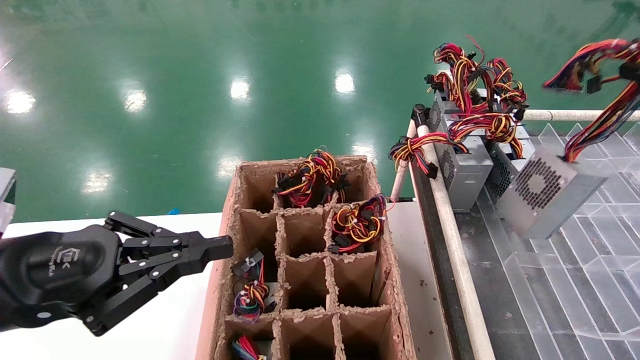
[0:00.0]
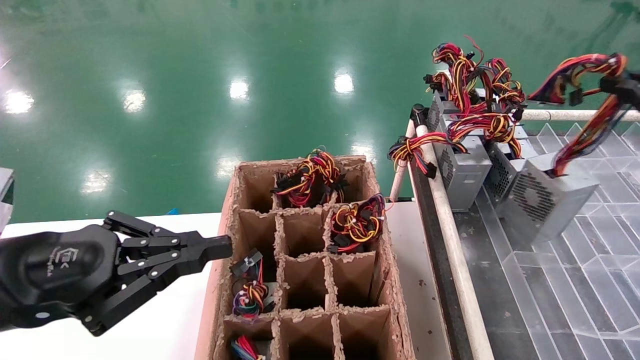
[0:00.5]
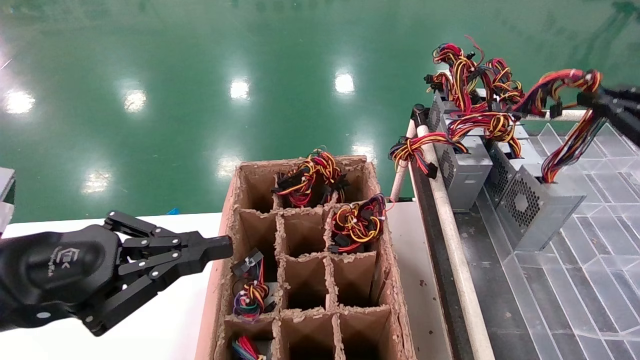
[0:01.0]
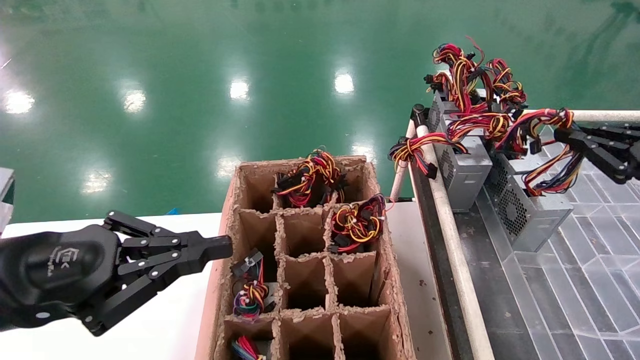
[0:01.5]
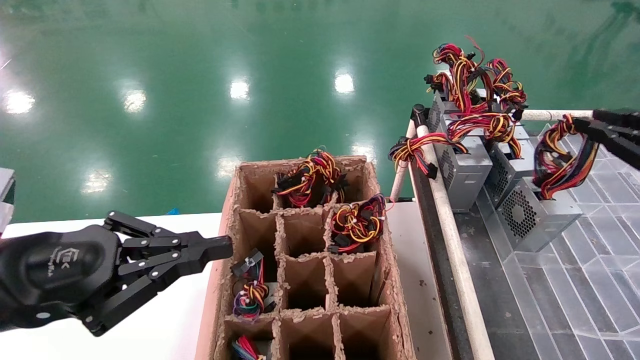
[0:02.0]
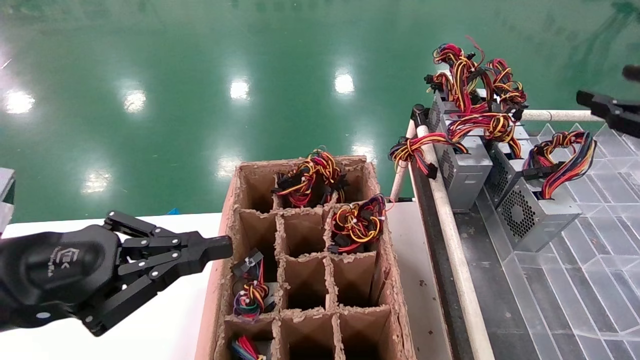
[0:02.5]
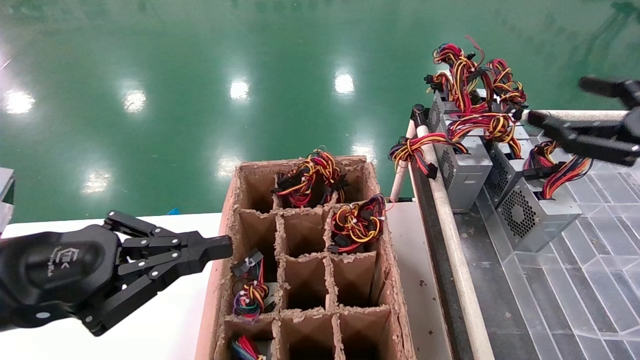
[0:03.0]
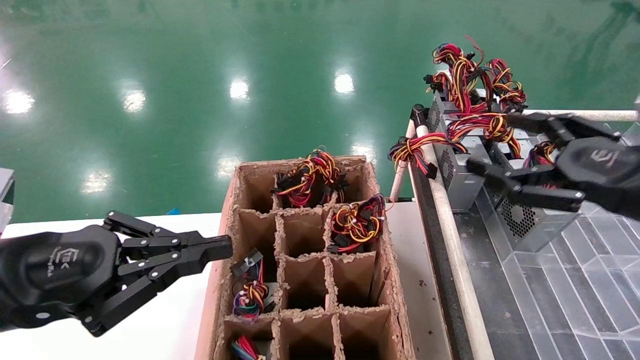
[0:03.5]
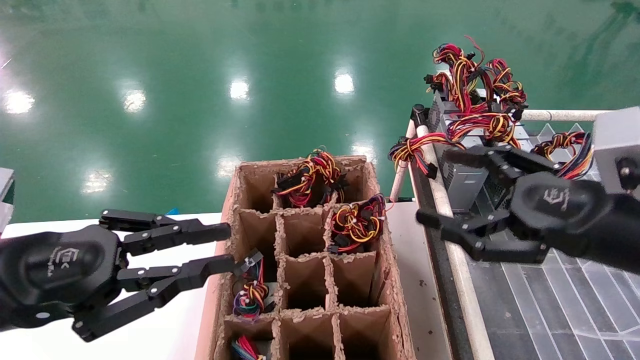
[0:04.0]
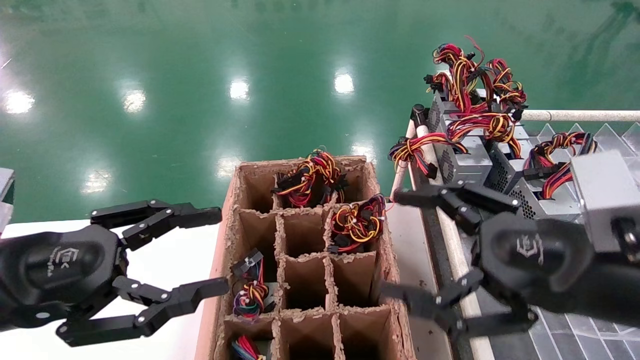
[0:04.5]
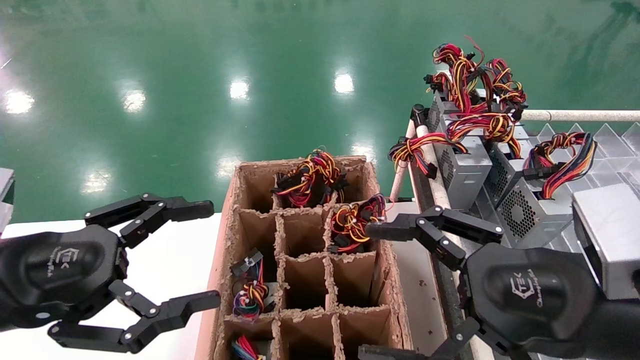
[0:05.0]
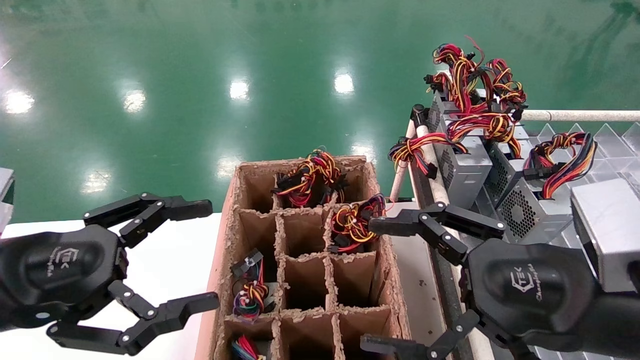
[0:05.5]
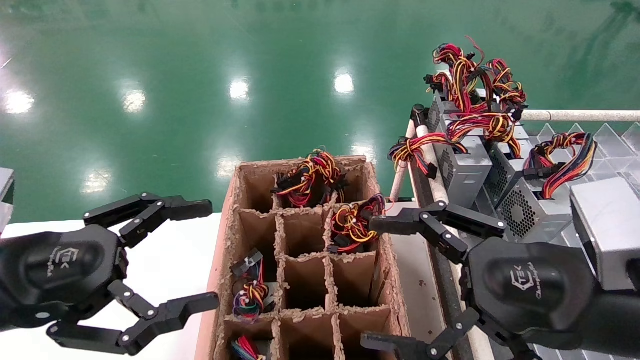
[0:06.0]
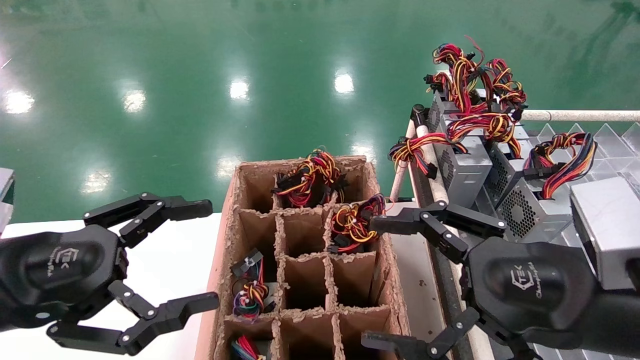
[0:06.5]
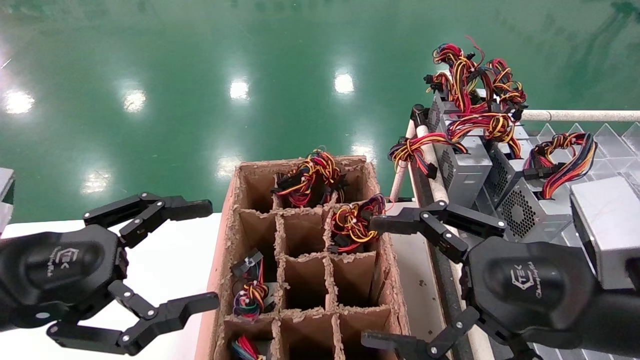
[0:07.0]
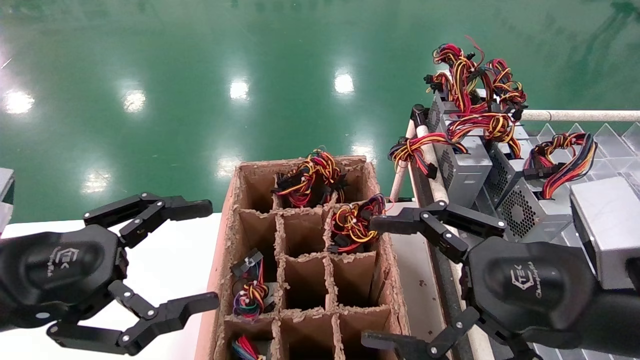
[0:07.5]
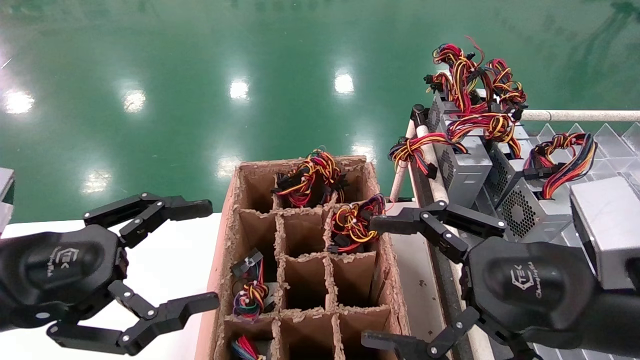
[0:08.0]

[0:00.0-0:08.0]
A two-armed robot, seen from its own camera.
Step, 0:00.0 to 0:02.5: Place the main unit power supply in the designated area.
0:00.0 to 0:02.0: The right gripper is displaced downward by some 5 cm.
0:02.0 to 0:04.0: The right gripper travels to the left by about 15 cm, and opens up.
0:04.0 to 0:06.0: The left gripper opens its fingers, while the right gripper is displaced to the left by about 5 cm.
0:06.0 to 0:08.0: Neither gripper changes place.

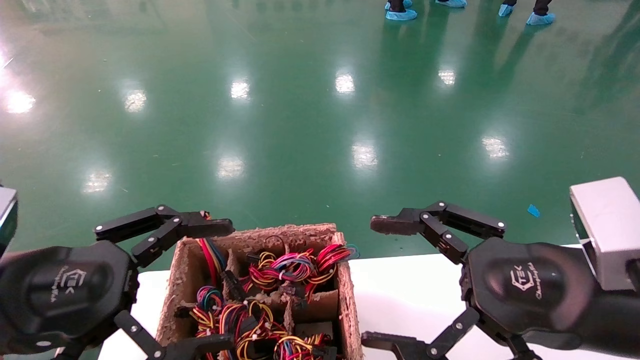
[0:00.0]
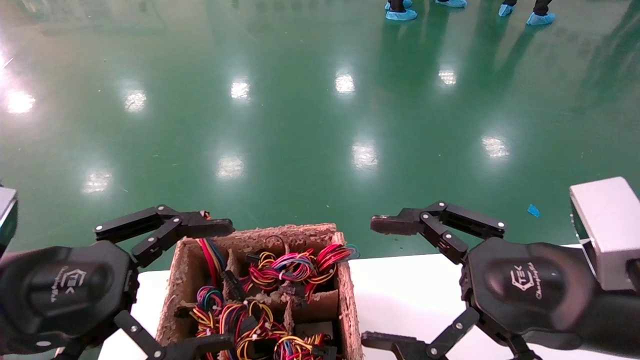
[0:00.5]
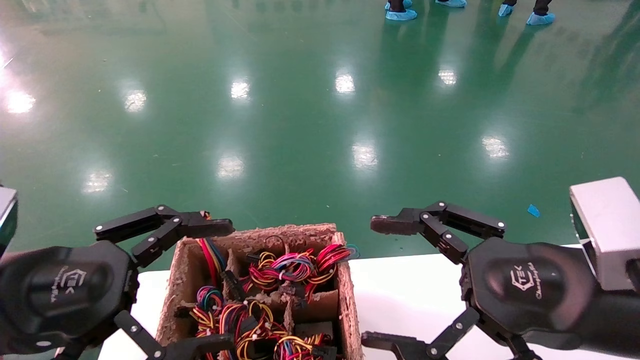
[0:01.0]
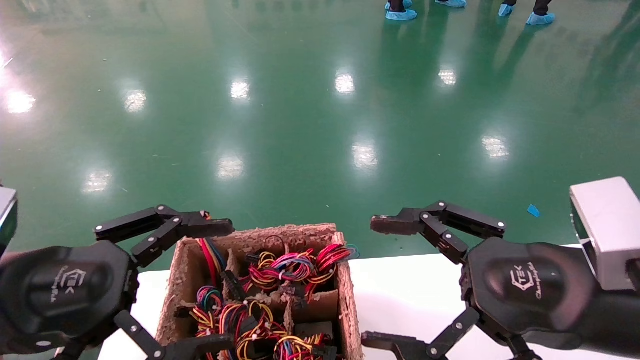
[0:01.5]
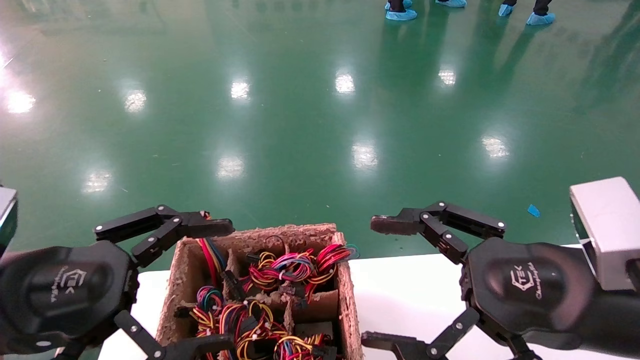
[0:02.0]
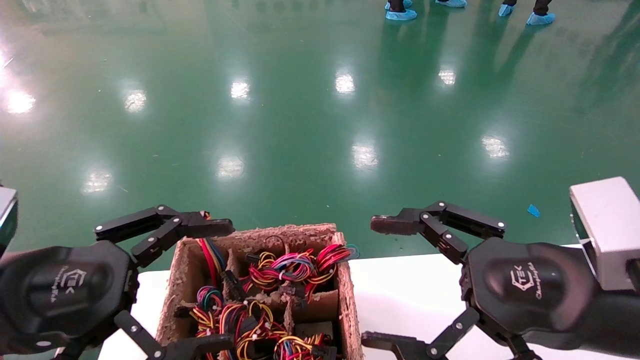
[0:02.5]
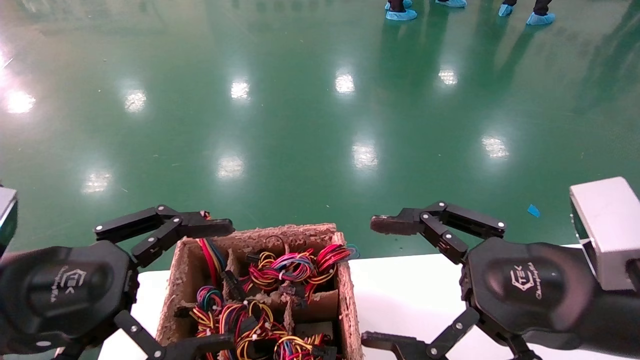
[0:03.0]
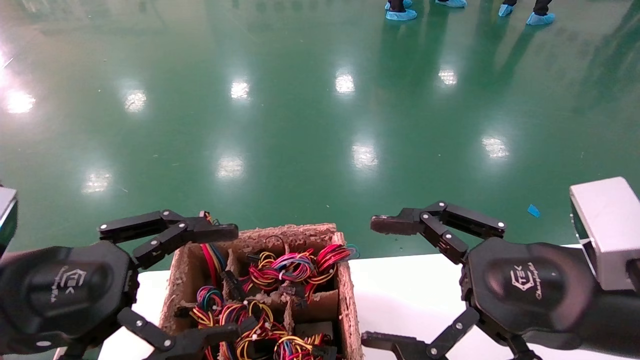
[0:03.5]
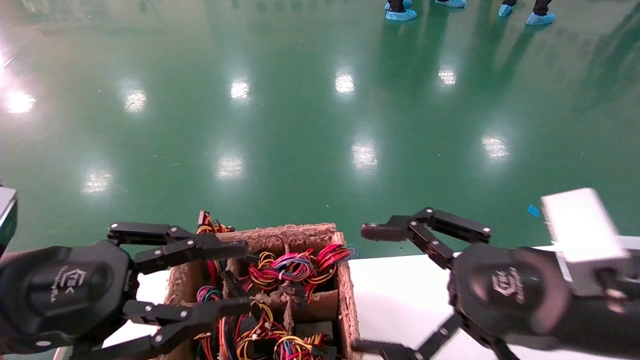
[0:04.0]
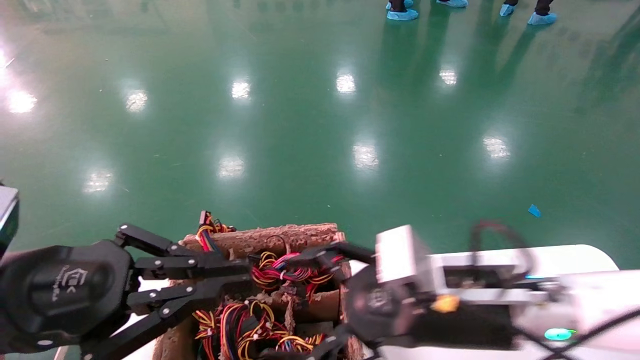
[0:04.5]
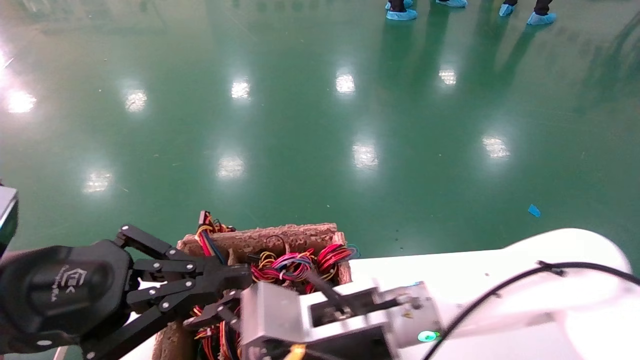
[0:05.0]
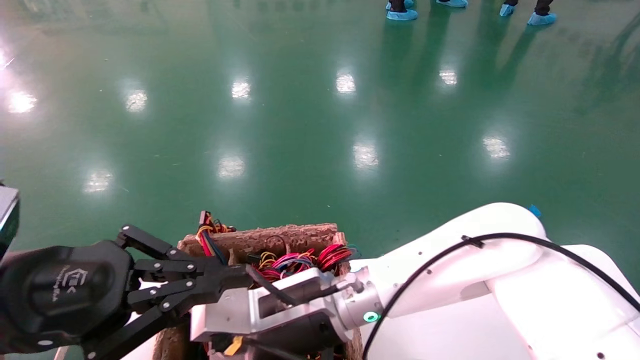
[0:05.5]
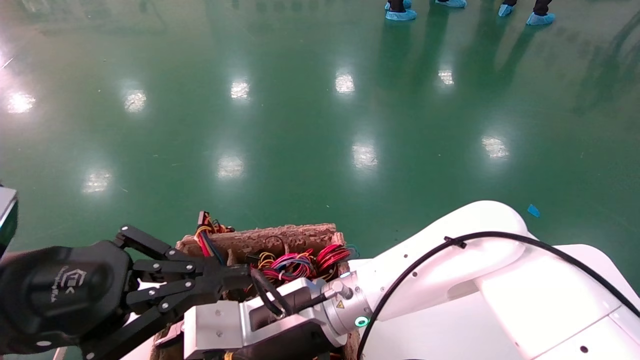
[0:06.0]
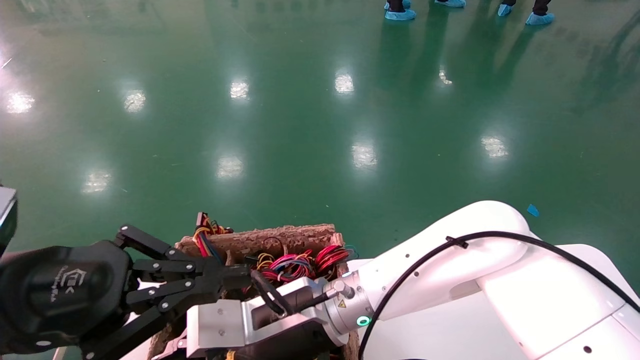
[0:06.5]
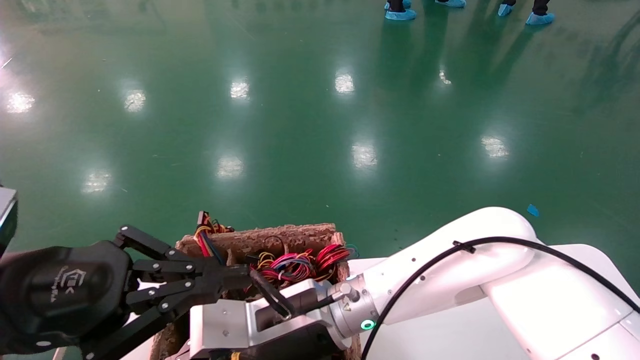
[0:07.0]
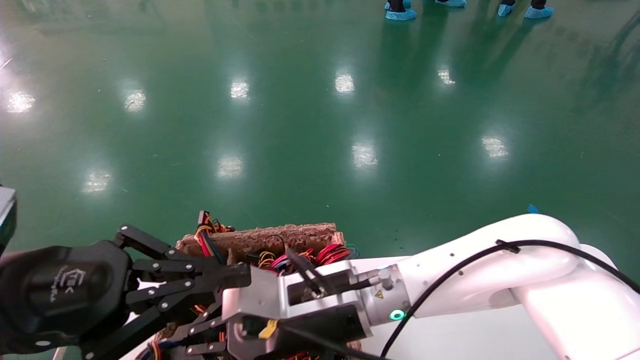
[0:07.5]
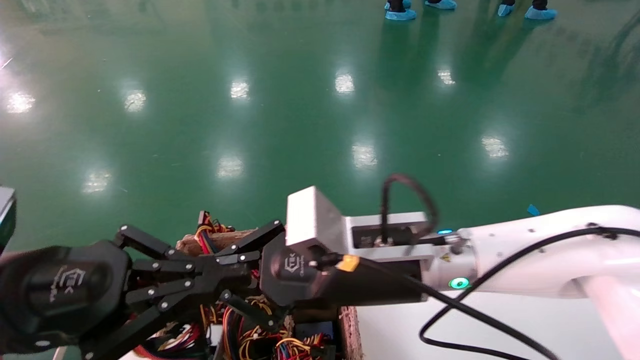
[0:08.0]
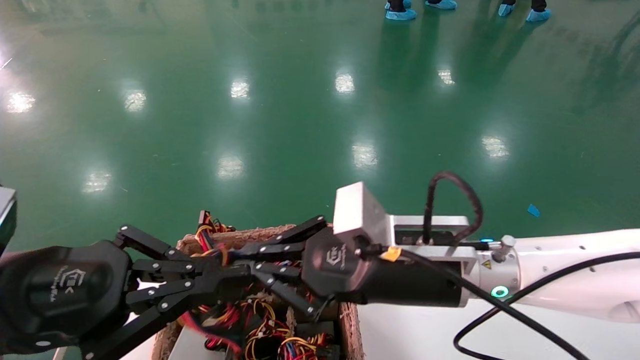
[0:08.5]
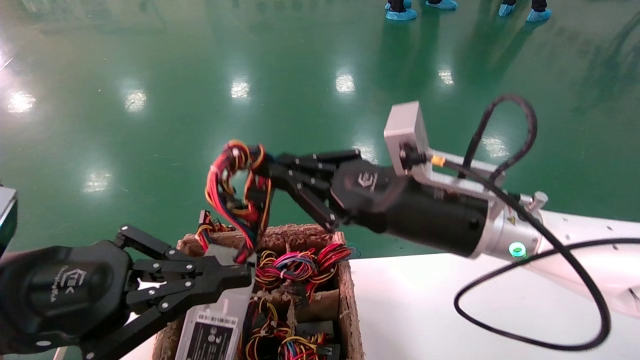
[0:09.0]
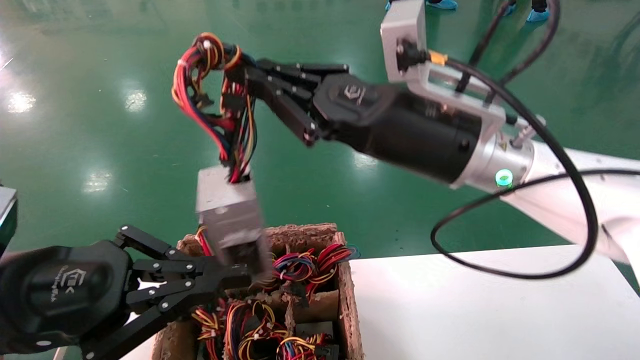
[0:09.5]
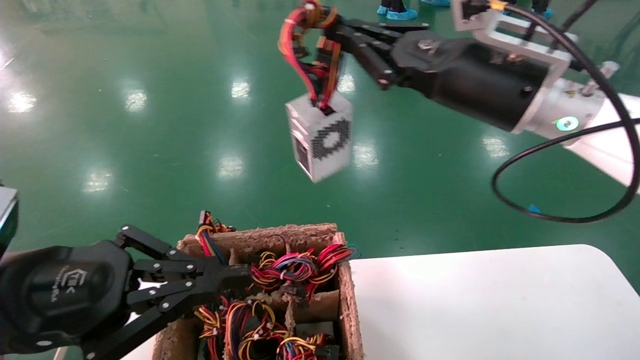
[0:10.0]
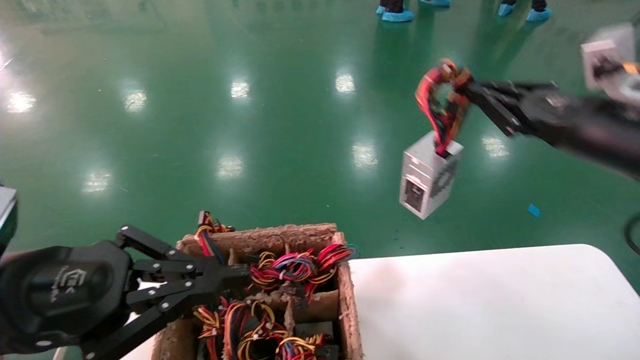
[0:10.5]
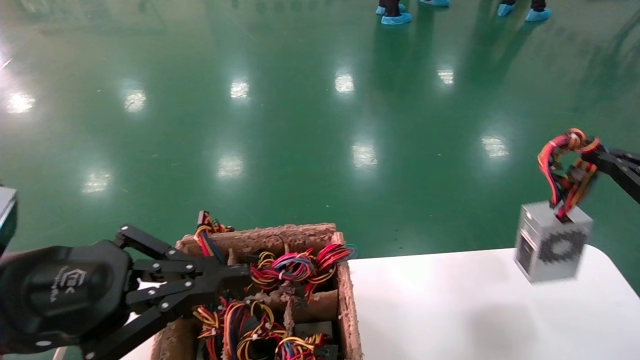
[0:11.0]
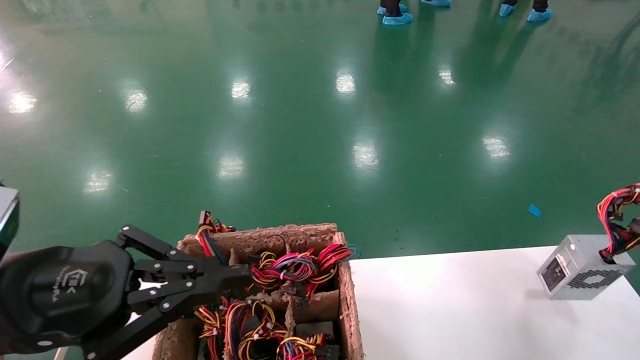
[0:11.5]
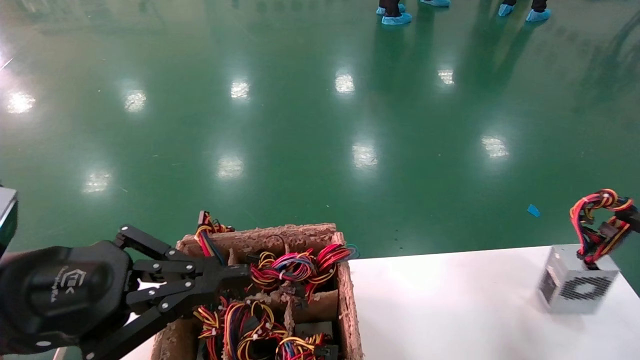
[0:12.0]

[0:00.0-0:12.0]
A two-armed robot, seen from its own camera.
Step, 0:04.5 to 0:07.0: Grab the main unit power supply from the containment box.
0:00.0 to 0:02.0: Both grippers stay about where they are.
0:02.0 to 0:04.0: The left gripper closes its fingers.
0:04.0 to 0:06.0: The left gripper closes its fingers. The right gripper travels to the left by approximately 25 cm.
0:06.0 to 0:08.0: The right gripper heads to the right and upward, covering about 10 cm, and closes its fingers.
0:08.0 to 0:10.0: The right gripper travels upward and to the right by about 20 cm.
0:10.0 to 0:12.0: The right gripper shifts approximately 40 cm to the right and downward.
